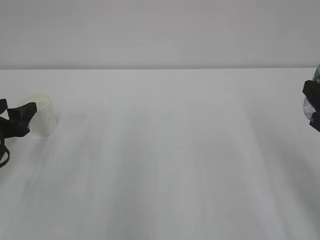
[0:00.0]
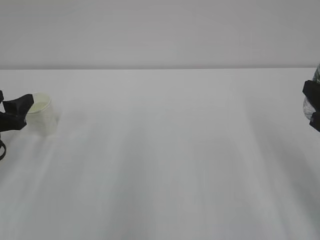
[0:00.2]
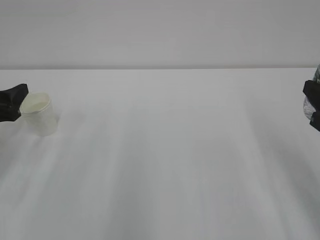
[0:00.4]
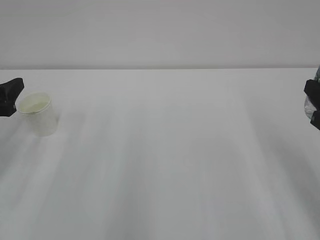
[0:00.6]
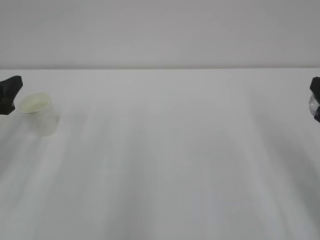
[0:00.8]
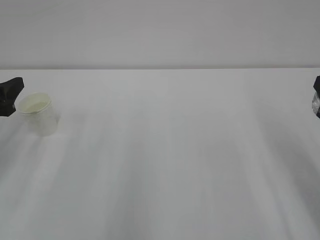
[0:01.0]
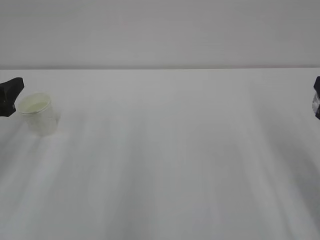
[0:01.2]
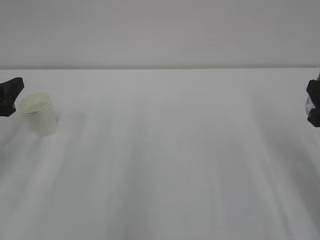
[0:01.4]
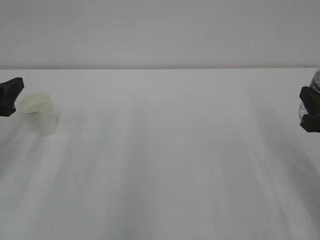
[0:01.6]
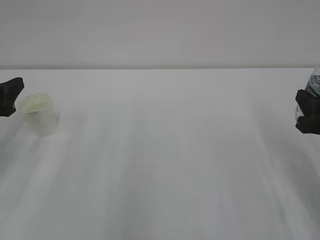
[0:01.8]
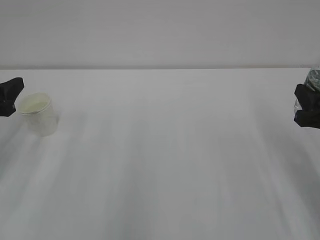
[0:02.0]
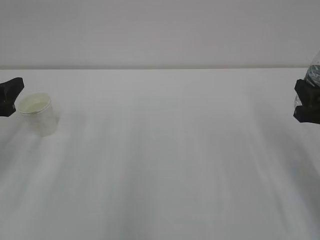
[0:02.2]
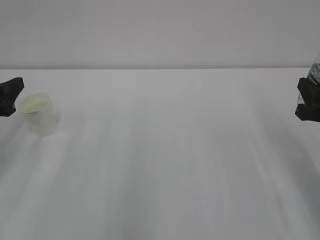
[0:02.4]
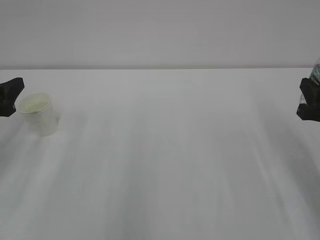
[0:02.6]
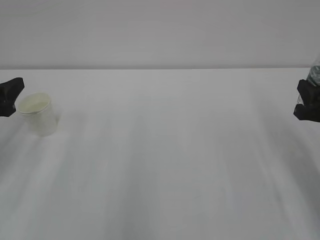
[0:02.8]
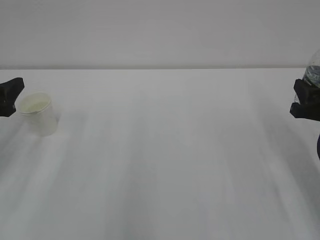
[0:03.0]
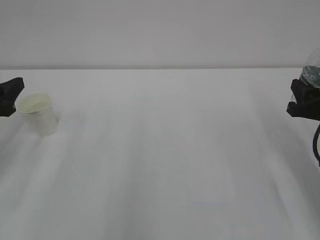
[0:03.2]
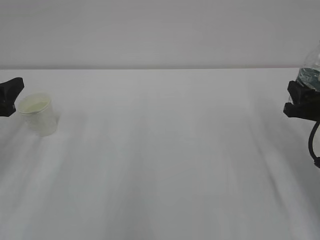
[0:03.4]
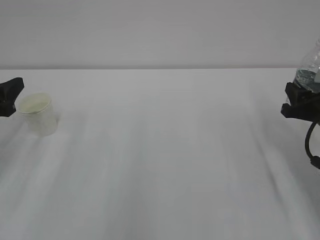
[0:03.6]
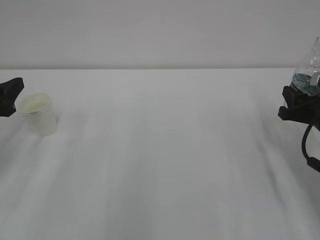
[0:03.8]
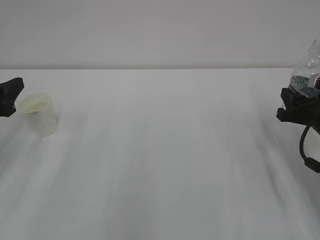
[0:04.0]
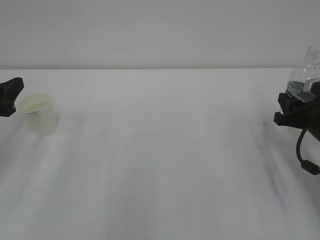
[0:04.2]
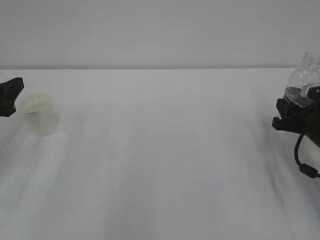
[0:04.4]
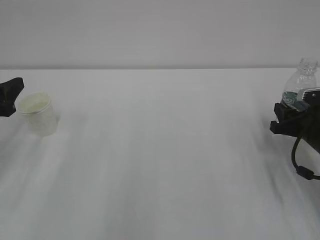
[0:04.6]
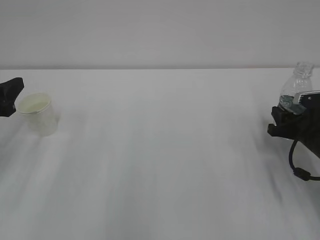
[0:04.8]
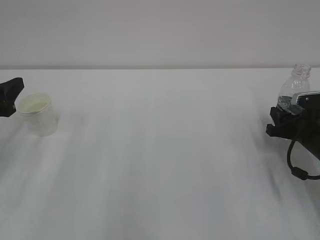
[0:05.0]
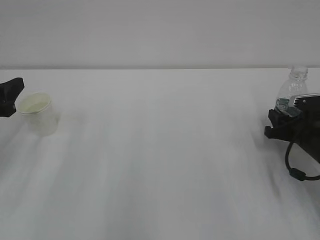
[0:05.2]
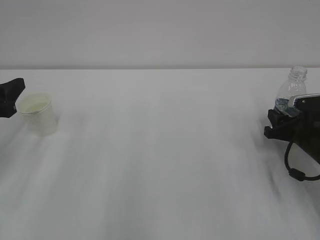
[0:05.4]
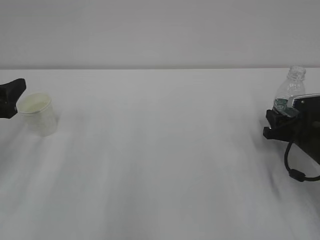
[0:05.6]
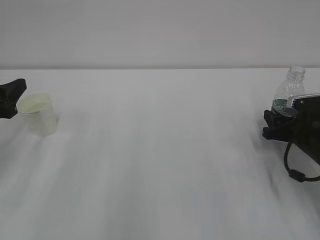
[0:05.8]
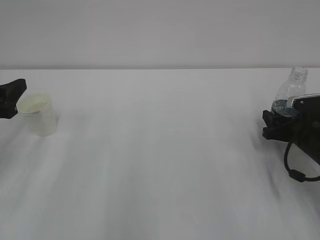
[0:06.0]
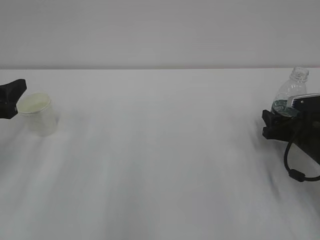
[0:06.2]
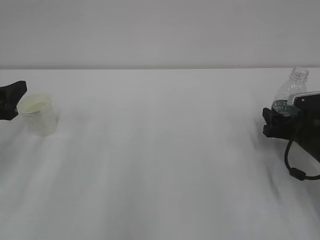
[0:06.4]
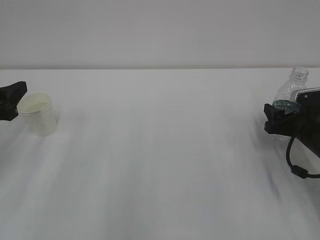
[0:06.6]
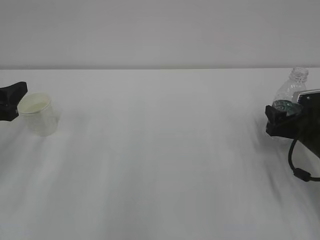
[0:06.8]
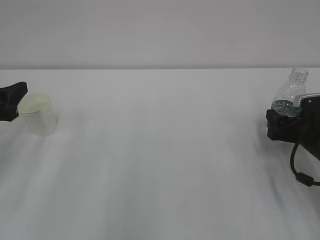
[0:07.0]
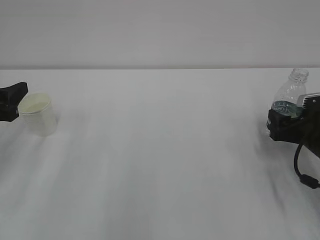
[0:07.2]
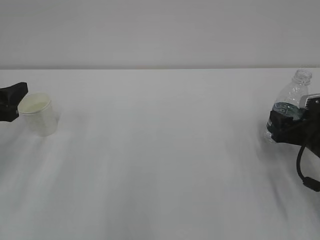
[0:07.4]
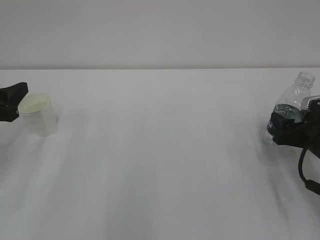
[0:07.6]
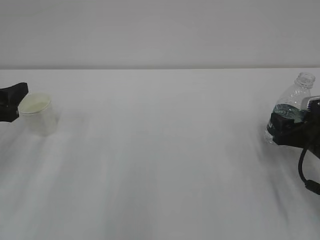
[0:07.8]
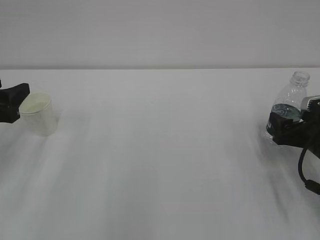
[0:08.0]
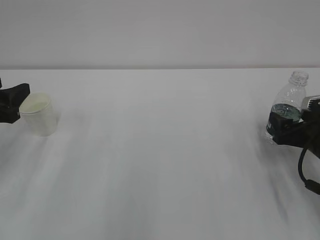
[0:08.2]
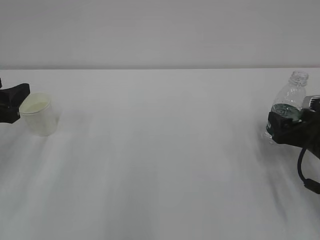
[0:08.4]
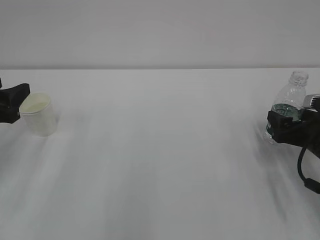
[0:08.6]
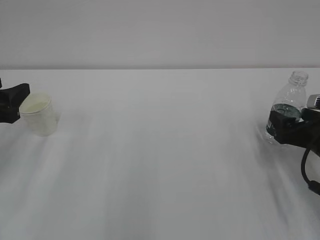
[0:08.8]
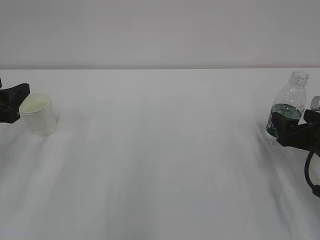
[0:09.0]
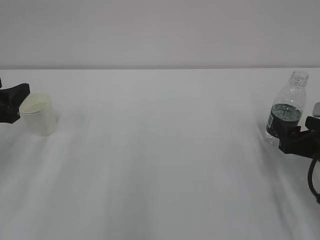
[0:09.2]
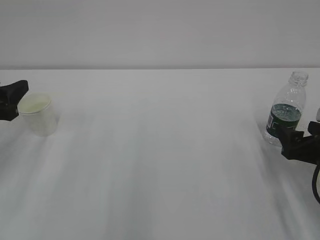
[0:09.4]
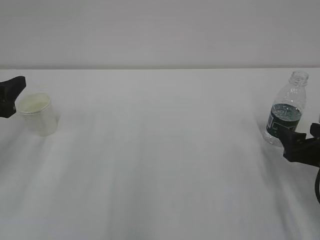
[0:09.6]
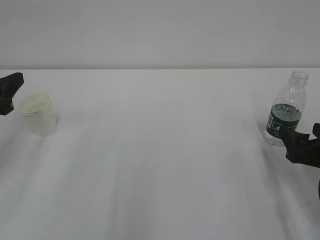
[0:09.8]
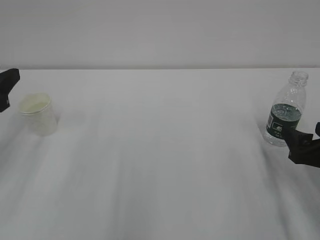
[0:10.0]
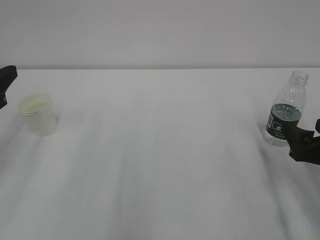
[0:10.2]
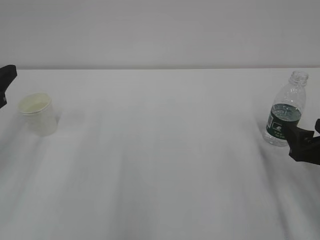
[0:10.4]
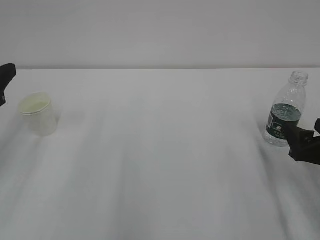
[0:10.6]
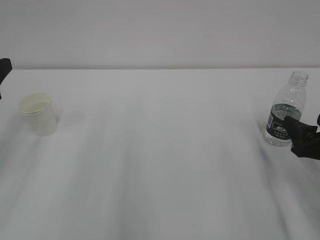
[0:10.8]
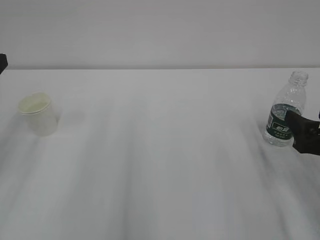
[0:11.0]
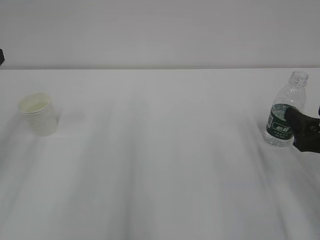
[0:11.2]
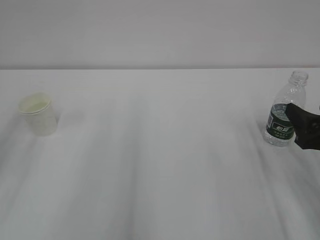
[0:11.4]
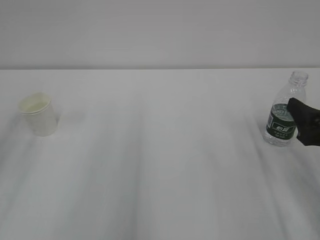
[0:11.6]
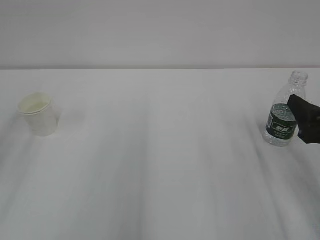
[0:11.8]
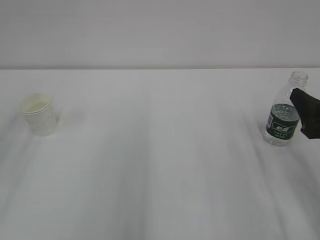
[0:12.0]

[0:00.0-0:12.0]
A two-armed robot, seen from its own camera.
0:00.0 to 0:01.6: The left gripper goes approximately 5 cm upward.
0:01.6 to 0:03.0: The grippers move only a little.
0:03.0 to 0:04.4: The right gripper goes roughly 5 cm downward.
0:04.4 to 0:06.0: The right gripper opens up.
0:06.0 to 0:07.6: There are only small adjustments of the grippers.
0:07.6 to 0:09.0: There are only small adjustments of the grippers.
0:09.0 to 0:10.4: The grippers move only a little.
0:10.4 to 0:12.0: The right gripper heads upward, covering roughly 5 cm.

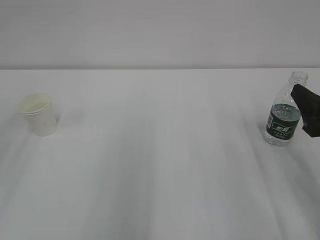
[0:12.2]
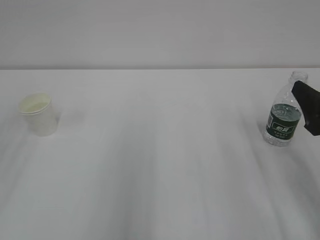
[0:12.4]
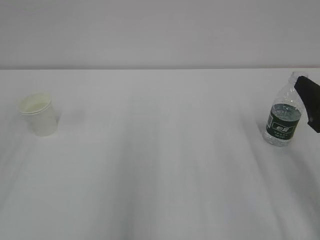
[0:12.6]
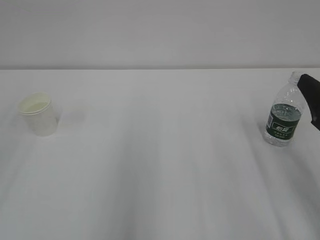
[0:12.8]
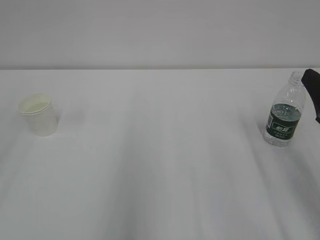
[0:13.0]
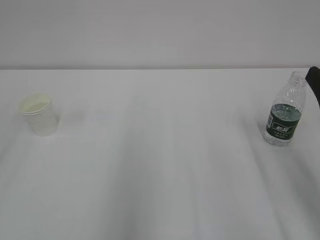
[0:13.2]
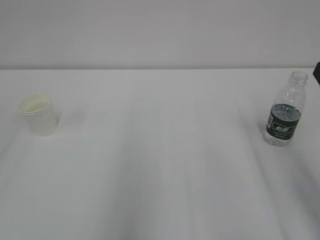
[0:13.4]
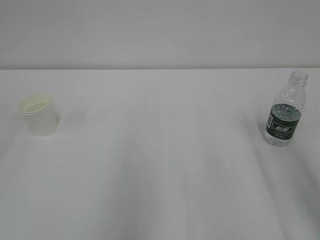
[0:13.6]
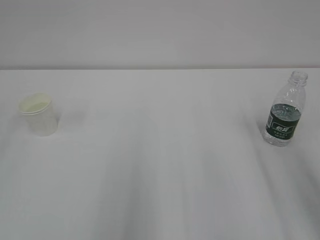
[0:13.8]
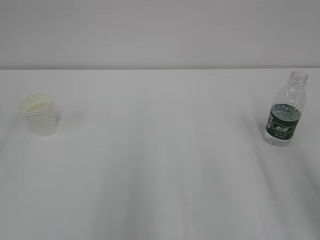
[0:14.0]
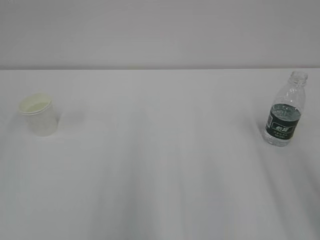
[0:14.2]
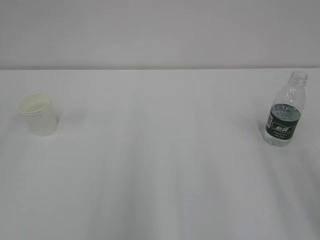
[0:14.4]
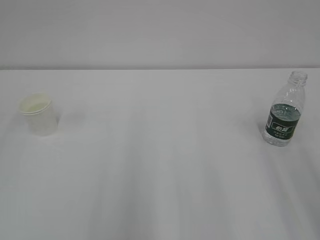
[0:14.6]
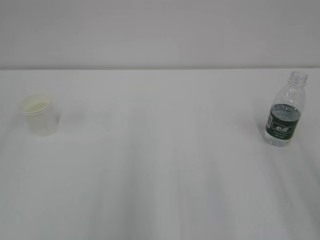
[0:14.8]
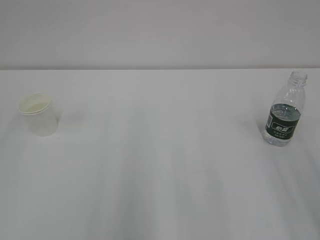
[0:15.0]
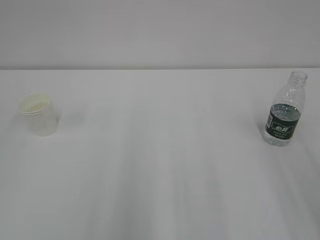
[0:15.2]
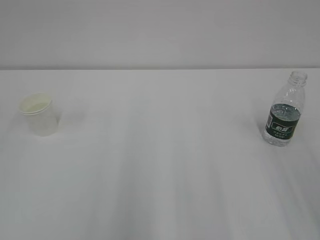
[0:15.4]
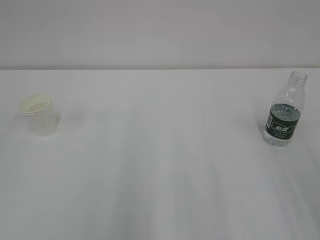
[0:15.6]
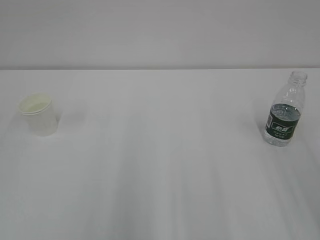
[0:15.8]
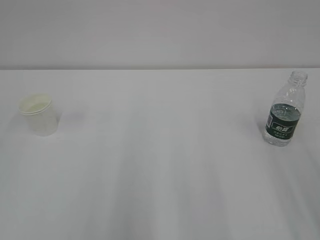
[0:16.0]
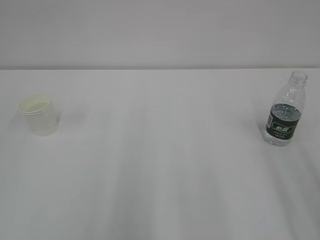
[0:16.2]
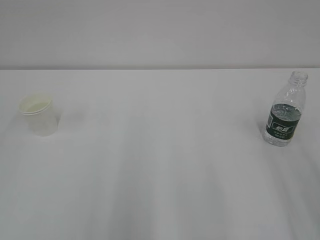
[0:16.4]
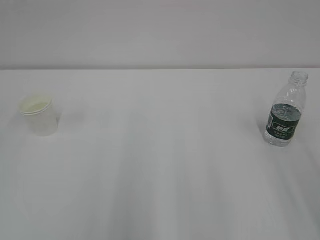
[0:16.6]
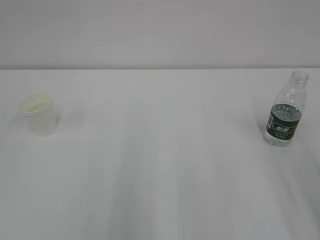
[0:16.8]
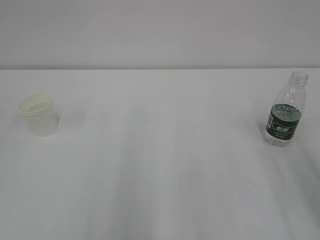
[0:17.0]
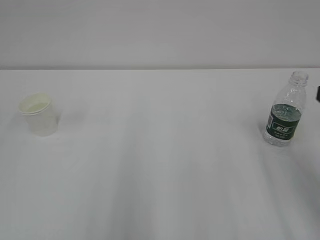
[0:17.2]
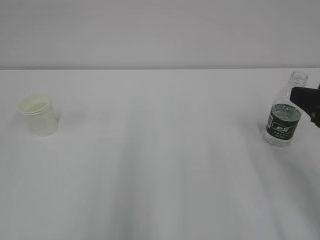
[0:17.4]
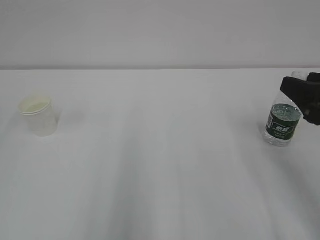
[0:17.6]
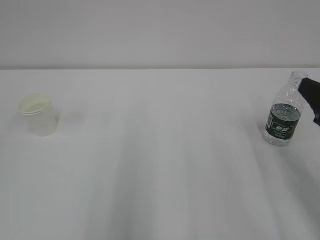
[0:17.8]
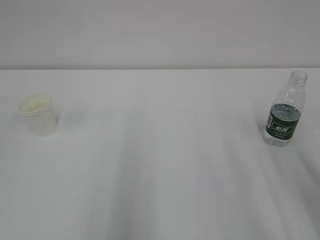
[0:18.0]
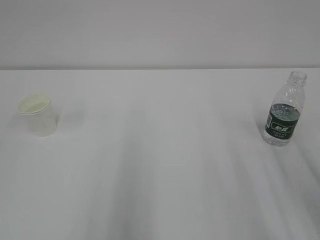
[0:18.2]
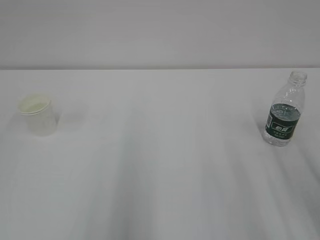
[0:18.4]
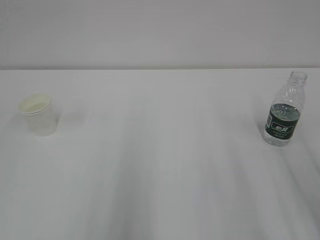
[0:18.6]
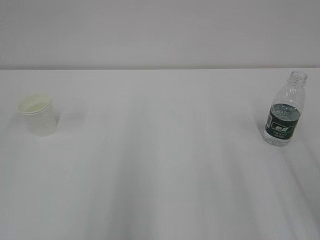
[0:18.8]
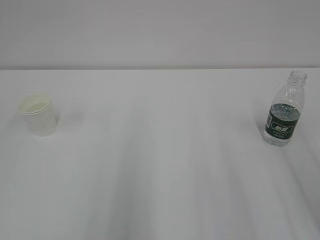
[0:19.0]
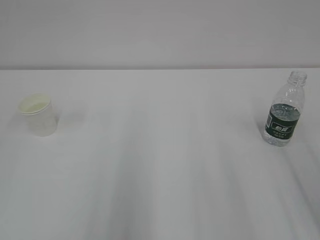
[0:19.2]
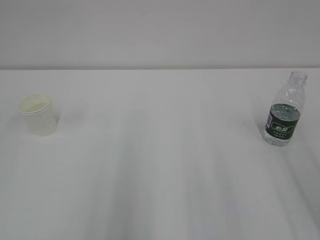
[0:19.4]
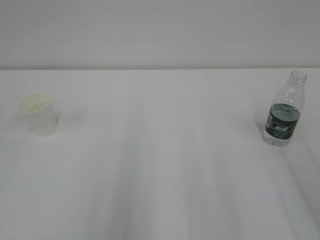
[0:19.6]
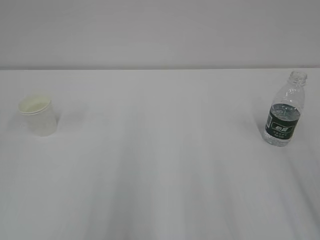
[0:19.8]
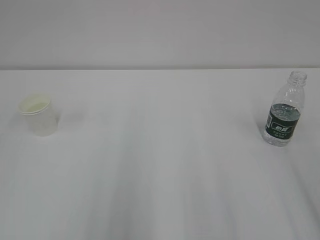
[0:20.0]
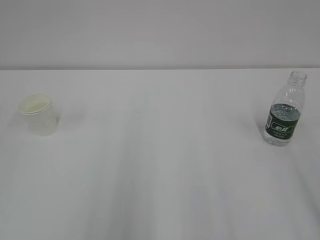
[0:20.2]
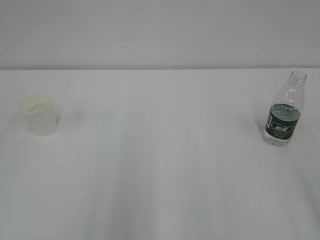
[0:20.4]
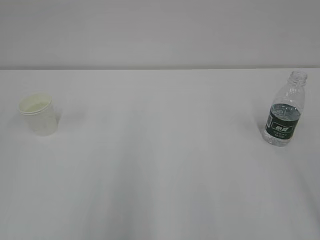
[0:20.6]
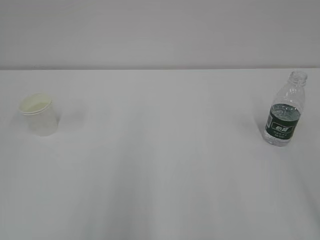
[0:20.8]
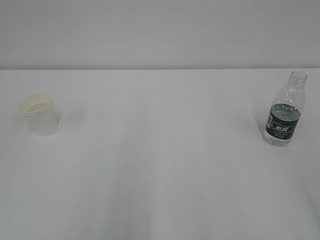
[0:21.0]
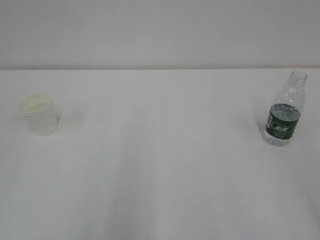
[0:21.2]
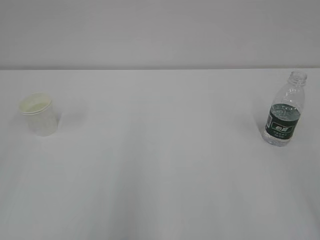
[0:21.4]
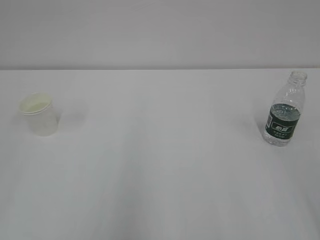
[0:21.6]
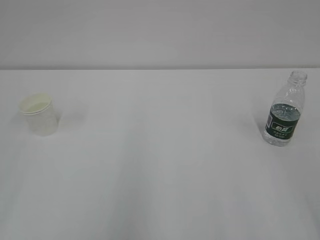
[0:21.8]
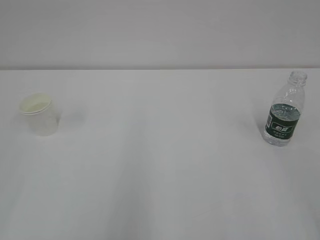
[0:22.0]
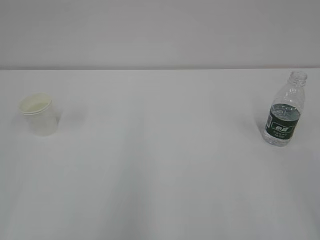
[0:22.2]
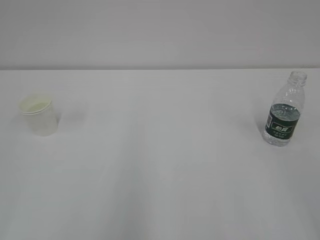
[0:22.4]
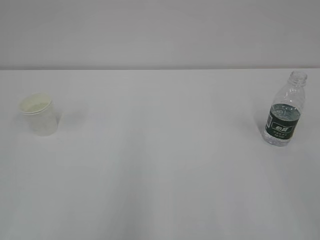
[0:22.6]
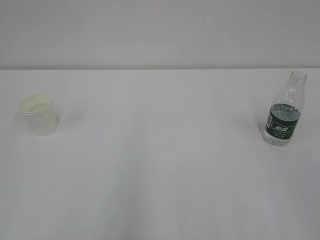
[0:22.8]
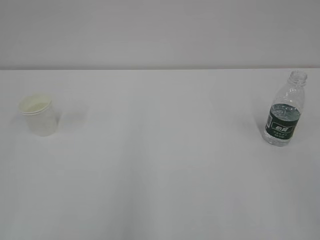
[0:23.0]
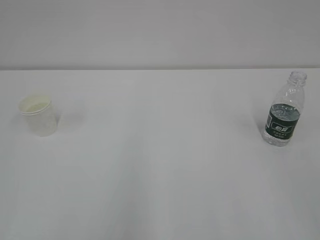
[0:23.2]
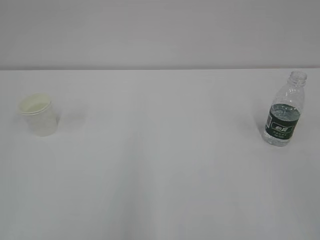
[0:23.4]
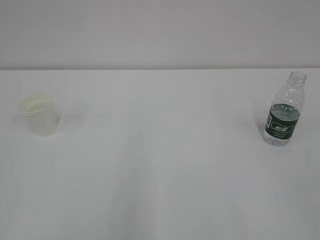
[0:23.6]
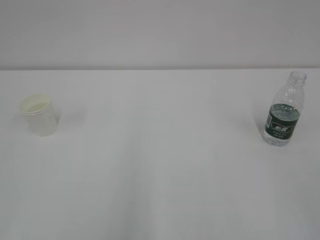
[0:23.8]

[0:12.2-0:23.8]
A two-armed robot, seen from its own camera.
0:12.2 to 0:13.6: The right gripper heads upward, covering approximately 5 cm.
